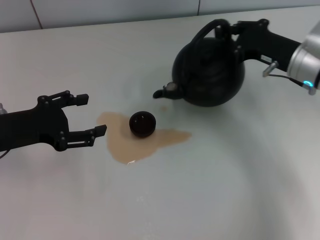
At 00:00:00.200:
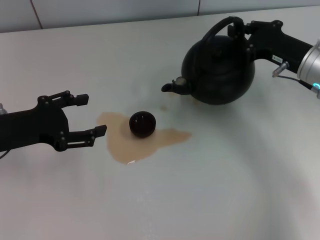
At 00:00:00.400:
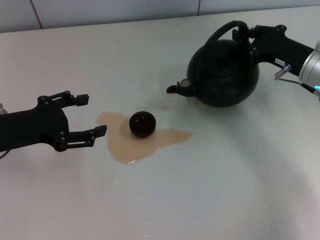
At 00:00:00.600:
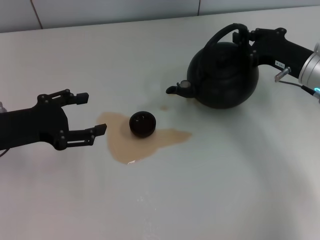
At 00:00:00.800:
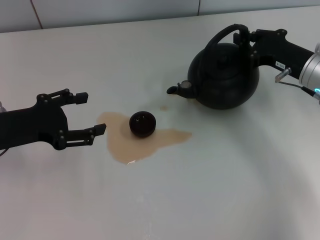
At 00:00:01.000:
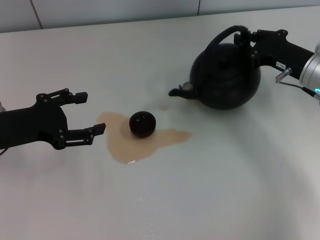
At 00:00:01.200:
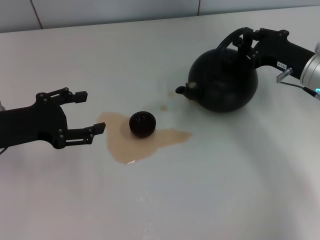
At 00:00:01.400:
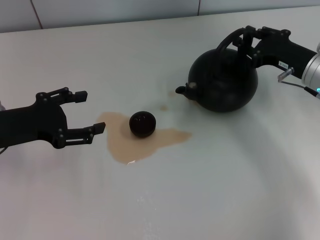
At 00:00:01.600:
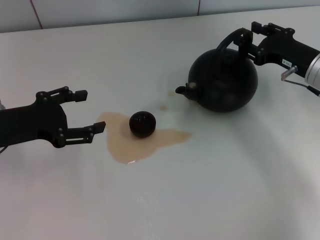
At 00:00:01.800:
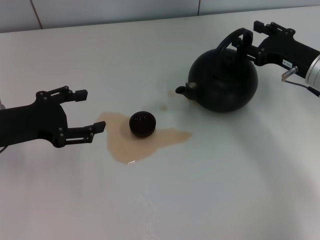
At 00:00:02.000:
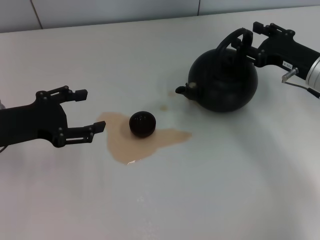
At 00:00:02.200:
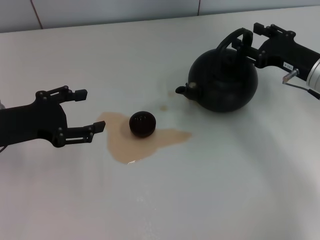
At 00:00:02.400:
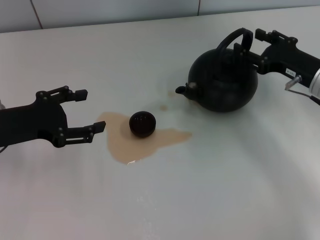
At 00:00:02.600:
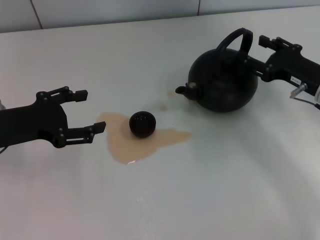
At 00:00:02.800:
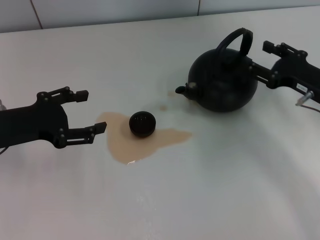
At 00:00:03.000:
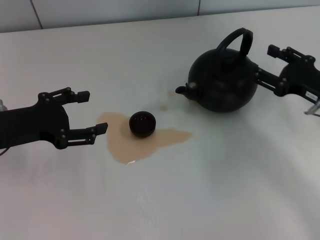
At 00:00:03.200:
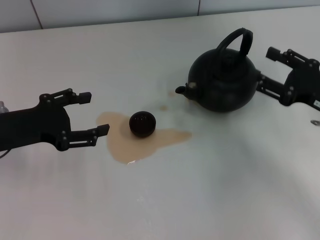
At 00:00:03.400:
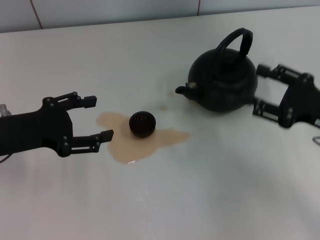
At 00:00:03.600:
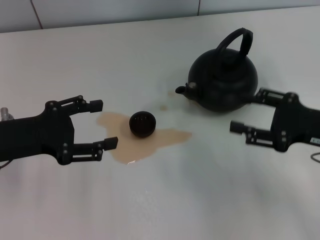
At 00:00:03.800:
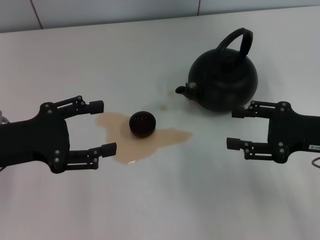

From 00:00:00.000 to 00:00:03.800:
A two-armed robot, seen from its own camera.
Task of the whole recording: Grasp the handle of the teapot with one hand and pour tea into the teacup.
Step, from 00:00:00.000 to 00:00:02.400: Put down the teapot with the right gripper.
From 00:00:00.000 to 00:00:01.200: The grippers stay close to where they were, moving slightly.
From 00:00:01.200 to 00:00:02.600: The right gripper opens its fingers.
From 00:00:02.600 to 00:00:03.800: The right gripper goes roughly 5 cm backward.
